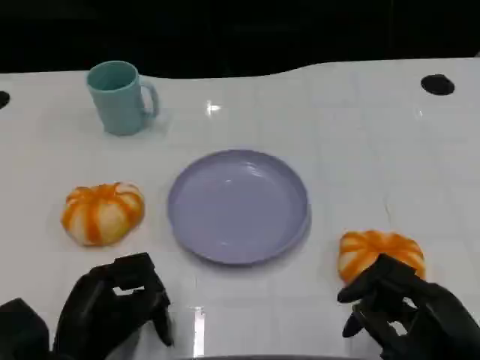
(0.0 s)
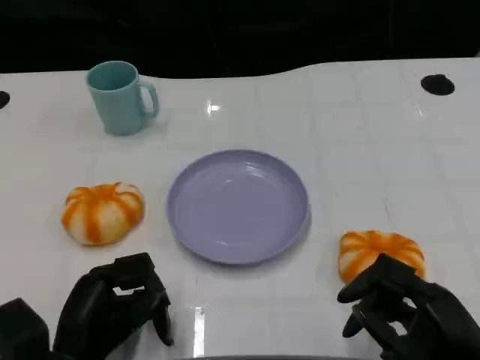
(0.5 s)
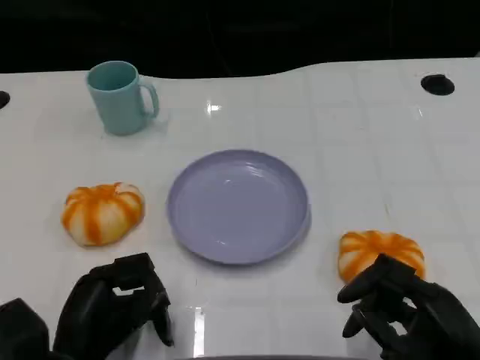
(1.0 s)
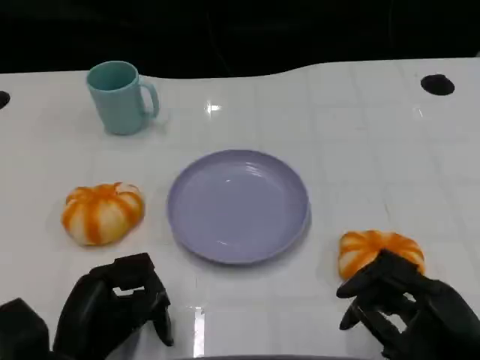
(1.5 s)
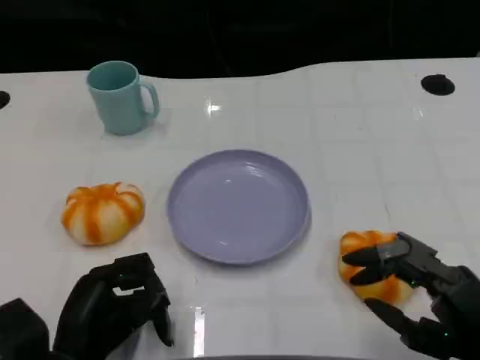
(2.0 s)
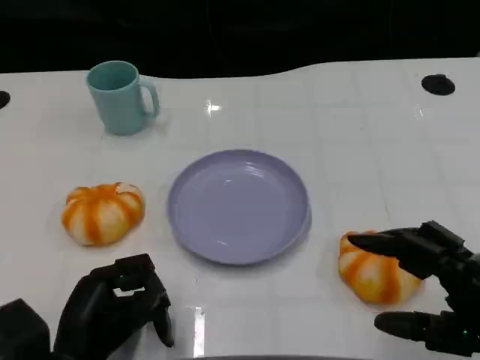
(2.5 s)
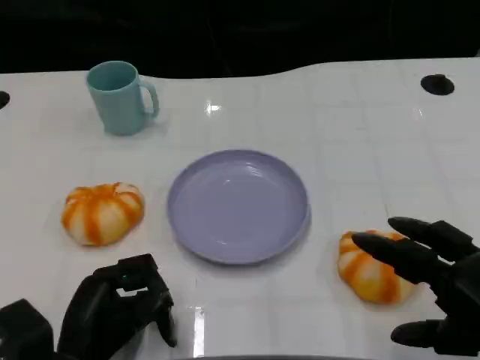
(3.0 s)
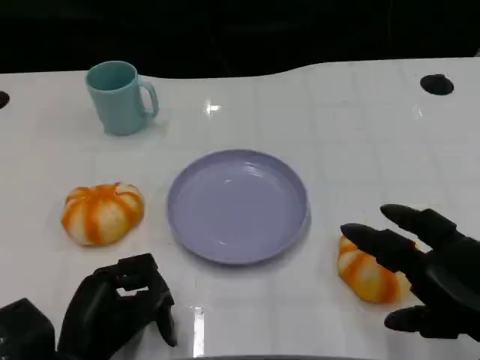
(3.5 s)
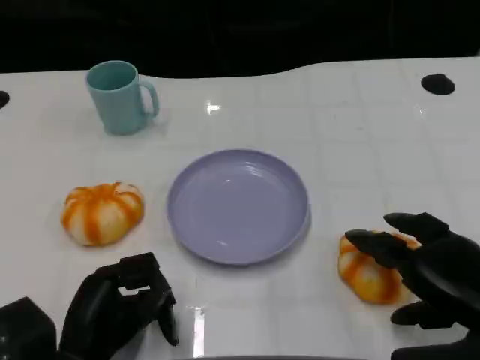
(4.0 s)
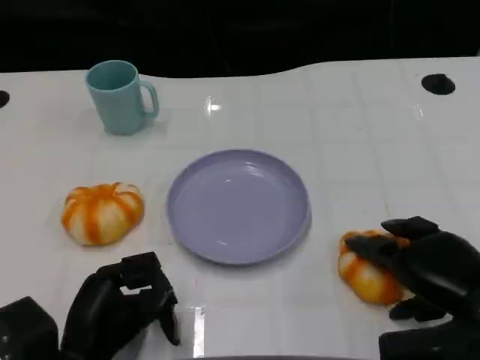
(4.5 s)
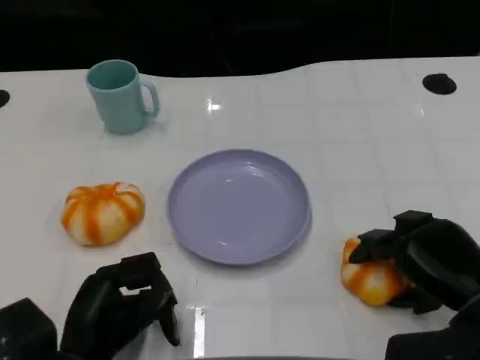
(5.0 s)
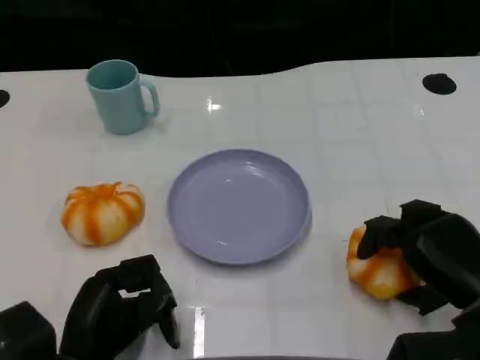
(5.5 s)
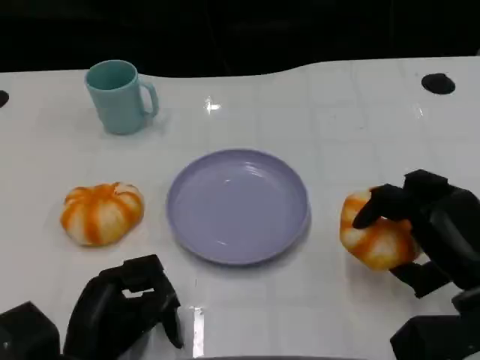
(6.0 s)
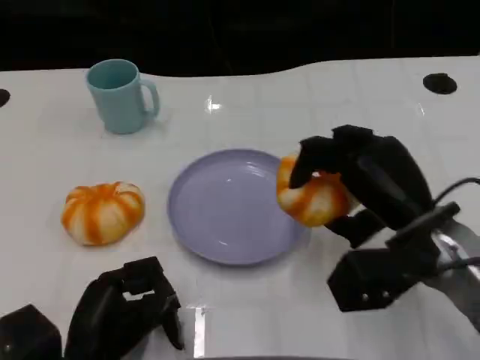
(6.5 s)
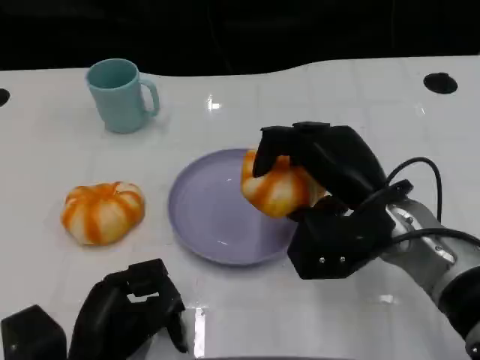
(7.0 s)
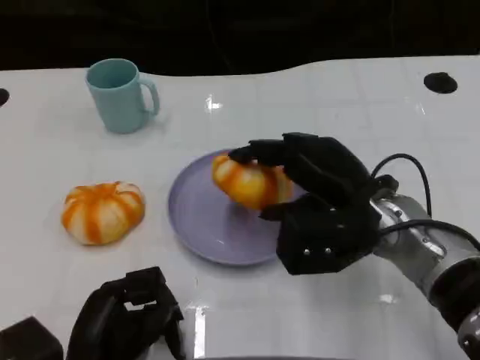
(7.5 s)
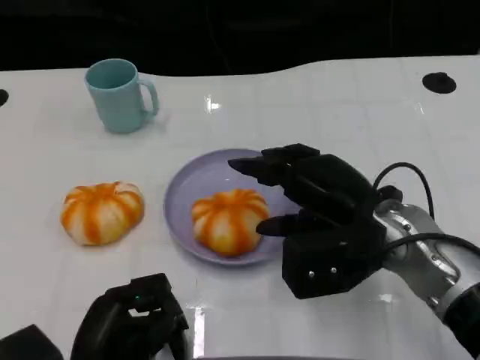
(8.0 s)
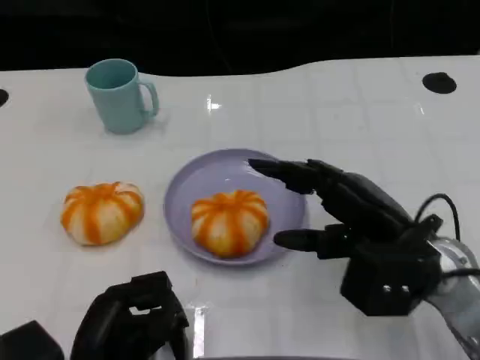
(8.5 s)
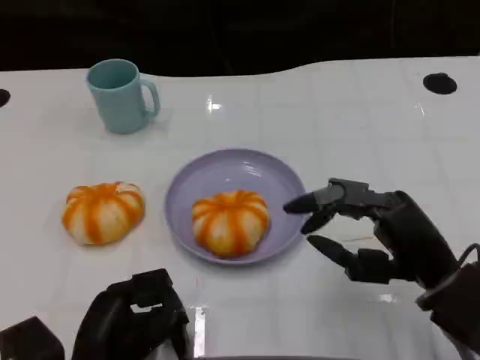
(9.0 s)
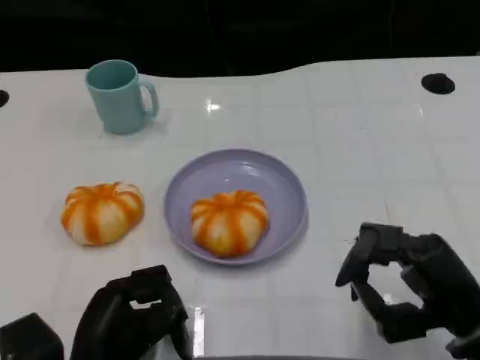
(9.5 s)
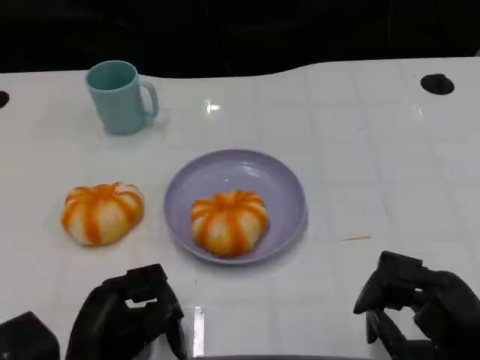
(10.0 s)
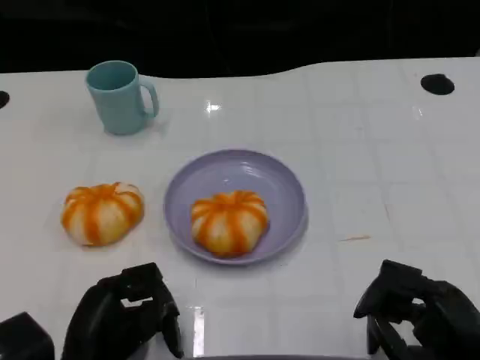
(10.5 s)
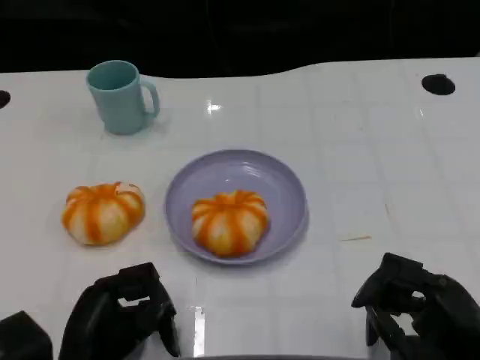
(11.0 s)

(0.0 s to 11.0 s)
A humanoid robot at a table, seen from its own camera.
Task of the whole recording: Grasp the bread from the table and place it into the plate.
3.5 s - 5.5 s: The right hand is displaced downward and forward by some 10 cm.
5.5 s - 7.5 s: The right hand travels to the left, forward and upward by approximately 15 cm.
7.5 s - 9.0 s: The right hand is displaced backward and to the right by about 10 cm.
9.0 s - 11.0 s: The right hand shifts approximately 10 cm backward and downward.

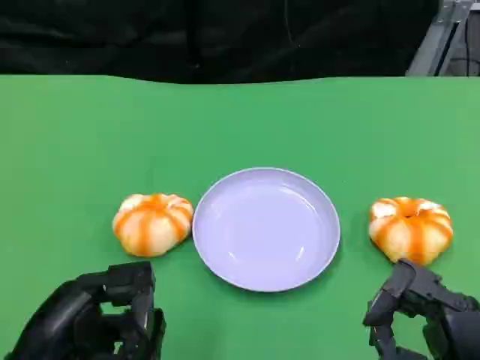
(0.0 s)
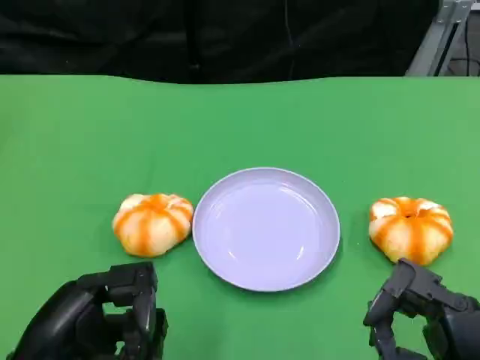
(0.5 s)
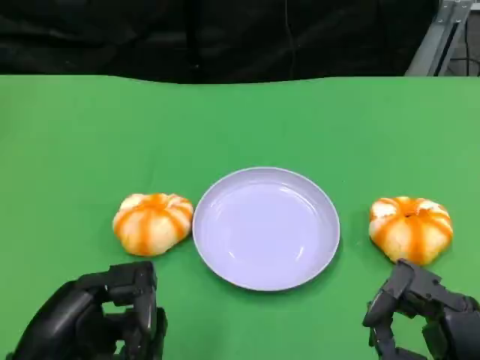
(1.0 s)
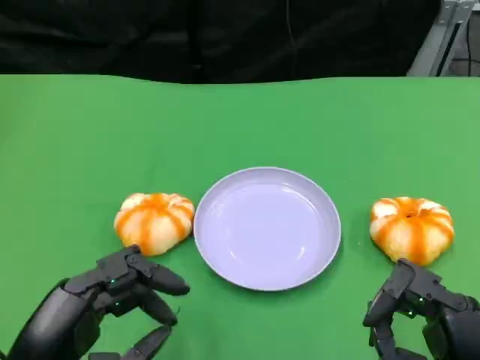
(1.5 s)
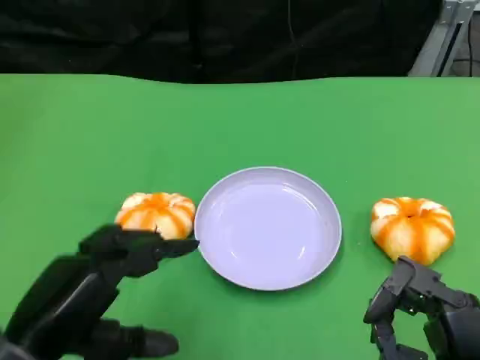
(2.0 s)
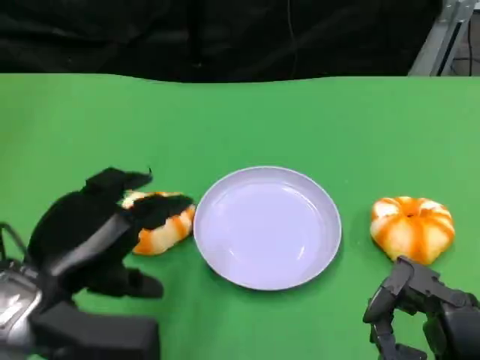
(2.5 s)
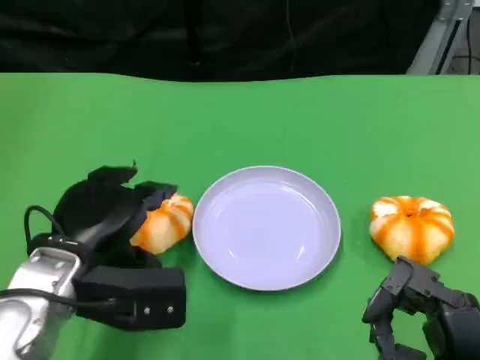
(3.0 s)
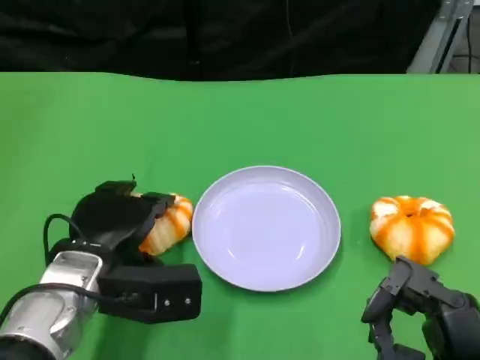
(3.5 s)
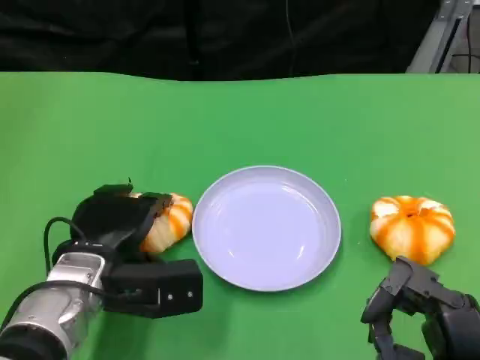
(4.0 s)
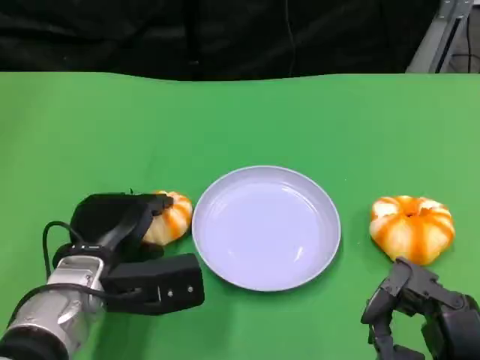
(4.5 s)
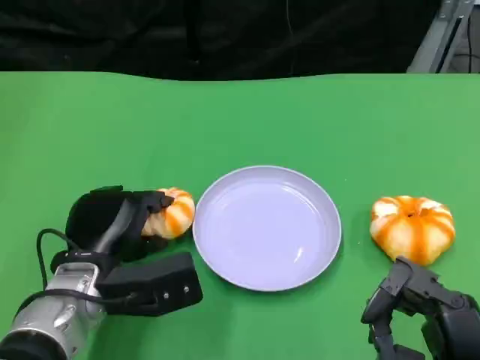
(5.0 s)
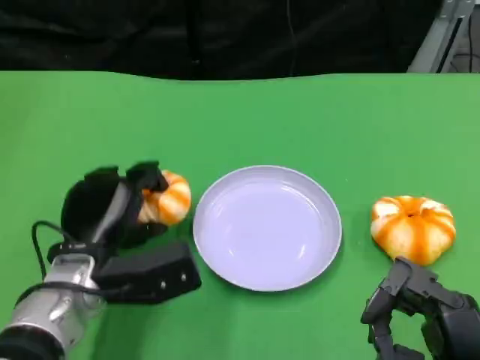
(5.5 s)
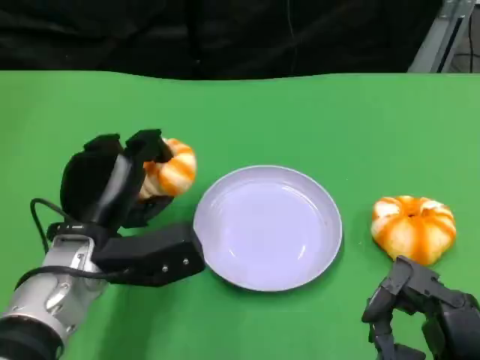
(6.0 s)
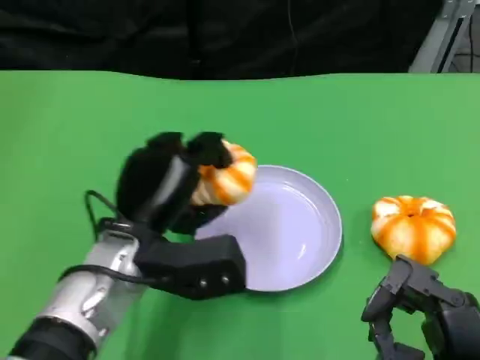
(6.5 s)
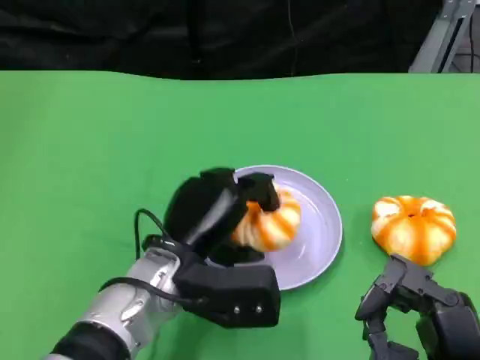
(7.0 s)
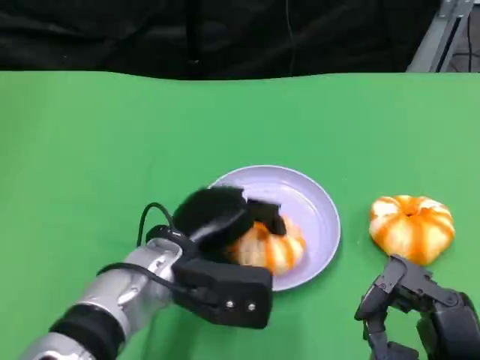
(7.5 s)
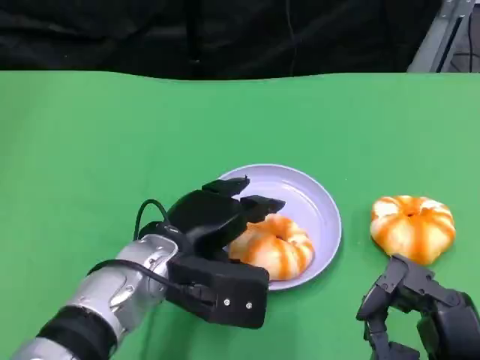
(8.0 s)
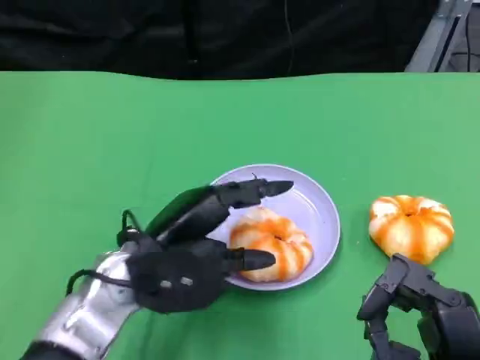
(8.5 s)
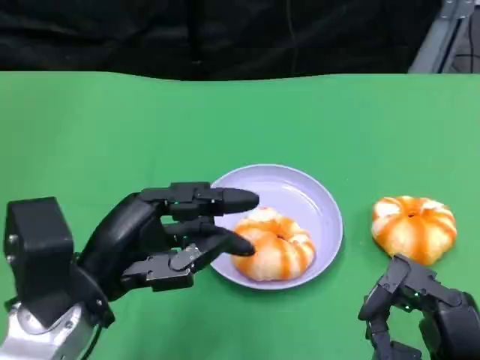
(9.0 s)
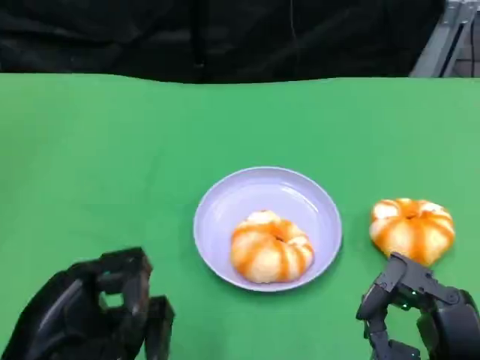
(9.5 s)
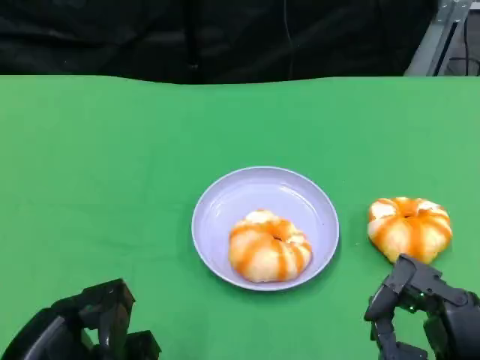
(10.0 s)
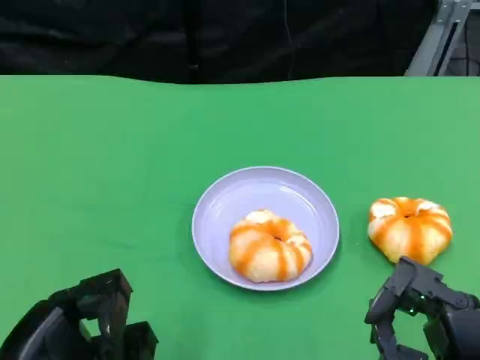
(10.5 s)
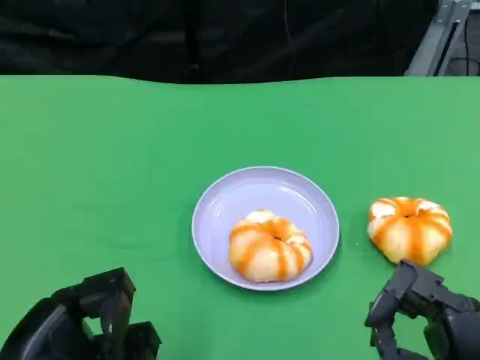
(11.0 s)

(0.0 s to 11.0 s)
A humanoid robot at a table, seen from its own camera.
Task of the whole recording: Grasp the bread from the table and place it into the plate.
2.0 s - 3.5 s: The left hand moves forward and downward, some 15 cm.
5.5 s - 7.5 s: The left hand moves to the right, some 10 cm.
7.5 s - 9.0 s: The left hand is displaced to the left, backward and upward by some 10 cm.
9.0 s - 11.0 s: The left hand travels backward by some 10 cm.

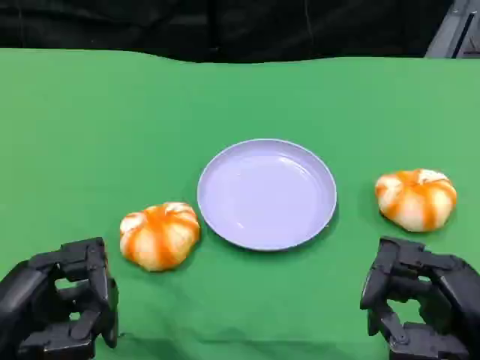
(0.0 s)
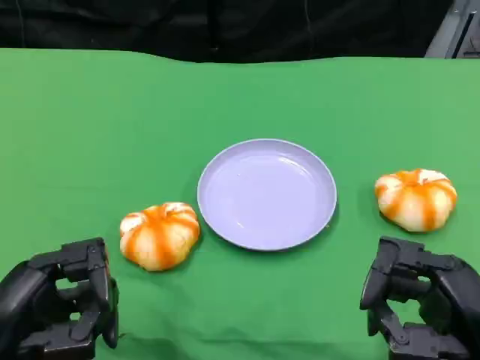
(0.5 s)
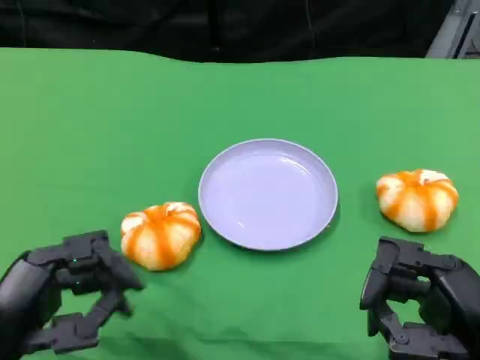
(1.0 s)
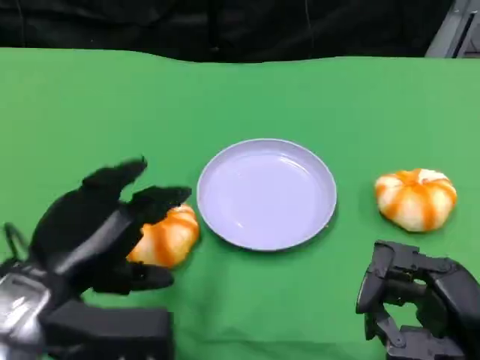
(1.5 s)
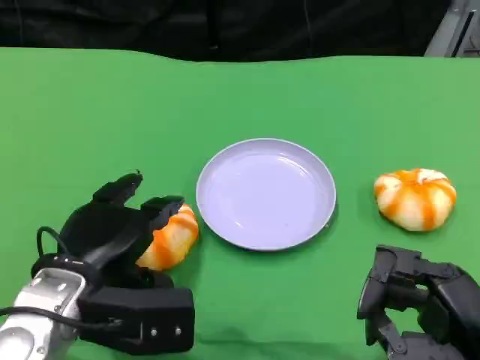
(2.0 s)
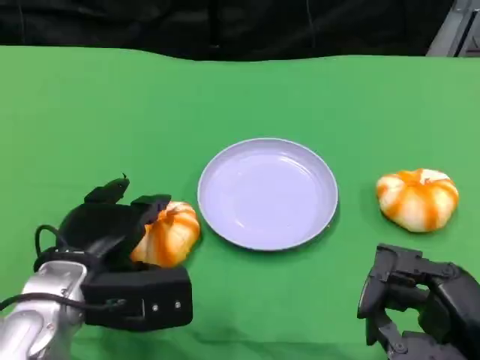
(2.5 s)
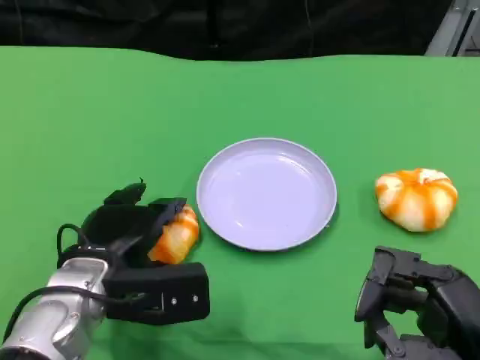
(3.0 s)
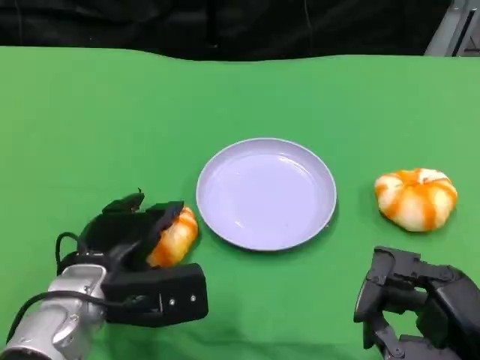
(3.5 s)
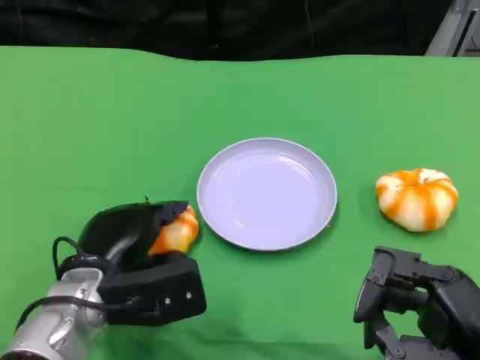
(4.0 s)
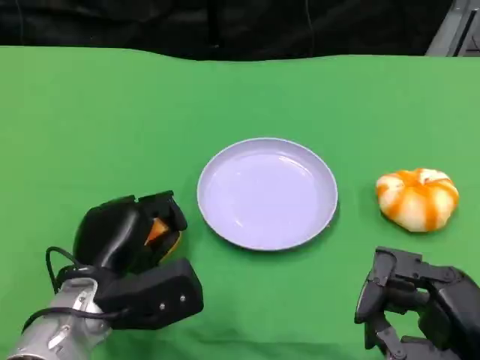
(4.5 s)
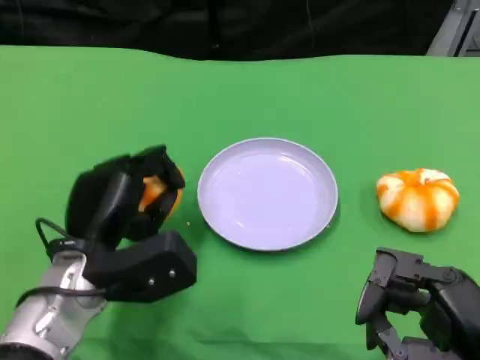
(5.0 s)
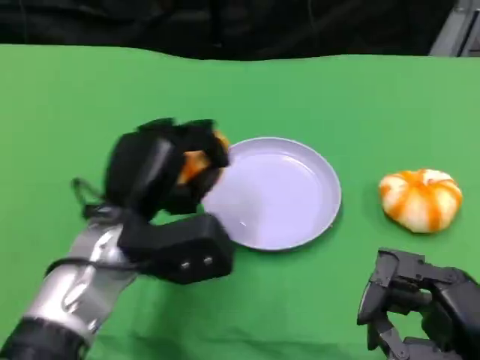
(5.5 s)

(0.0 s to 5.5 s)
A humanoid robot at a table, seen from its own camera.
Task of the whole recording: Grasp the bread from the table and place it into the plate.
0.0 s - 2.0 s: The left hand heads forward and to the right, covering about 10 cm.
2.0 s - 3.5 s: The hands make only small movements.
3.5 s - 5.5 s: The left hand is displaced upward by some 5 cm.
